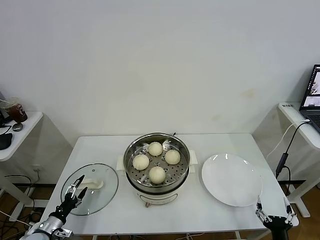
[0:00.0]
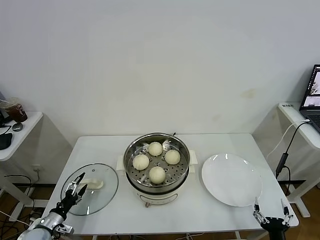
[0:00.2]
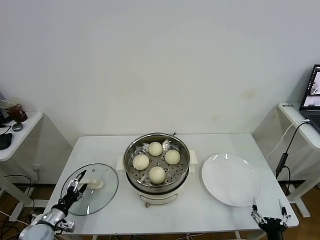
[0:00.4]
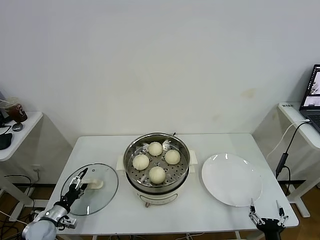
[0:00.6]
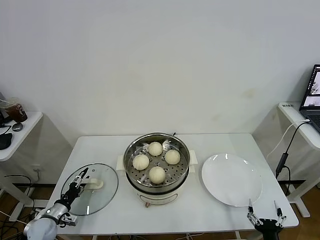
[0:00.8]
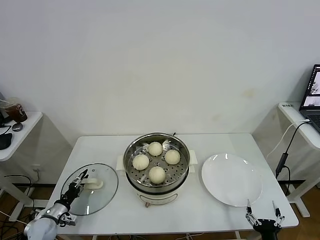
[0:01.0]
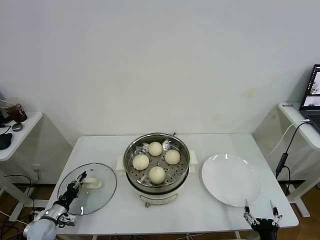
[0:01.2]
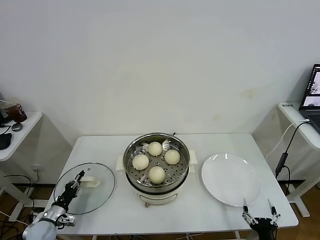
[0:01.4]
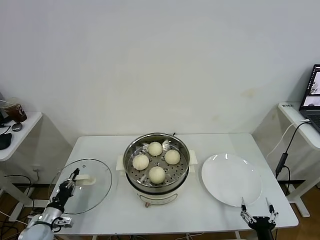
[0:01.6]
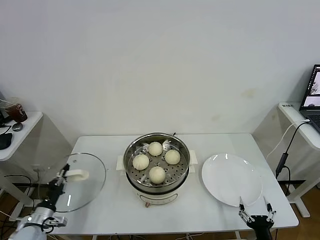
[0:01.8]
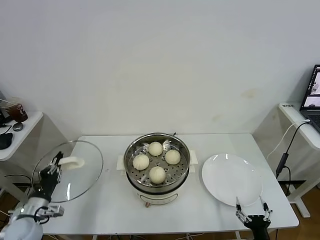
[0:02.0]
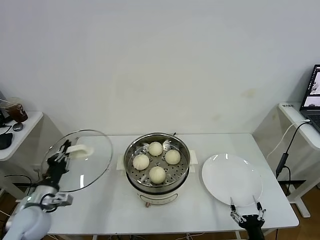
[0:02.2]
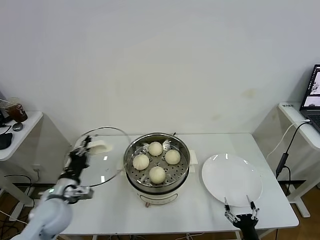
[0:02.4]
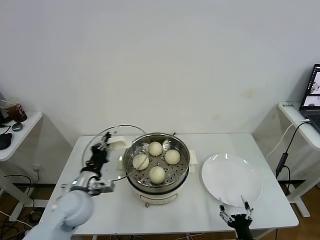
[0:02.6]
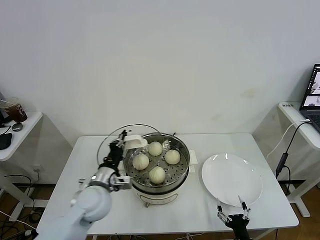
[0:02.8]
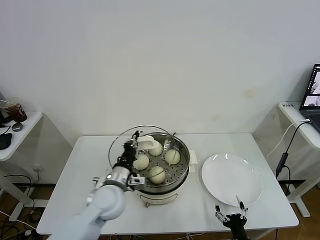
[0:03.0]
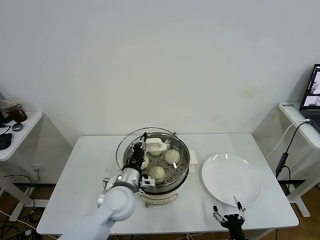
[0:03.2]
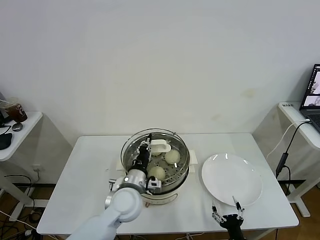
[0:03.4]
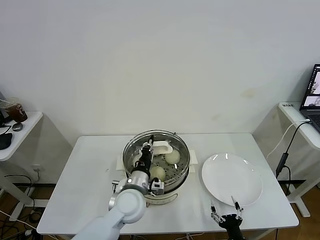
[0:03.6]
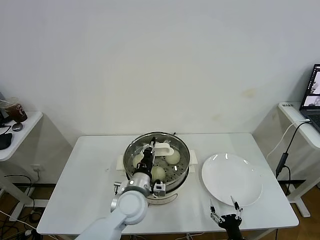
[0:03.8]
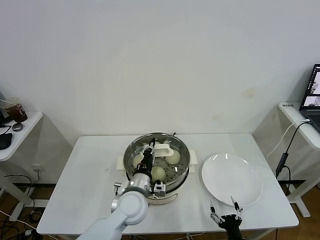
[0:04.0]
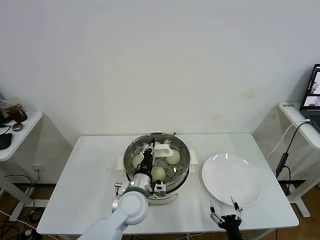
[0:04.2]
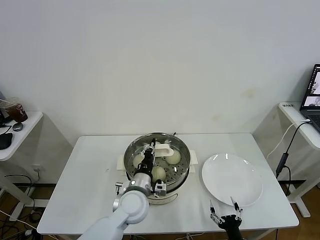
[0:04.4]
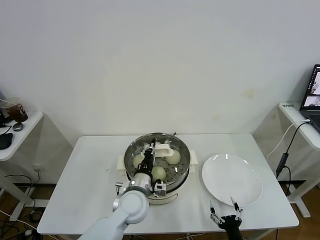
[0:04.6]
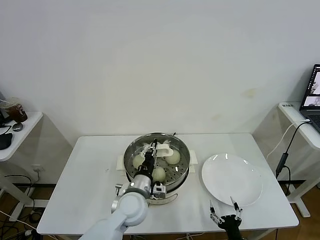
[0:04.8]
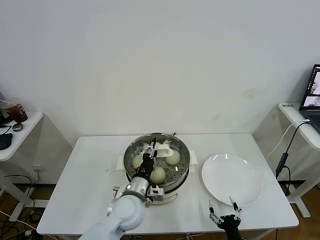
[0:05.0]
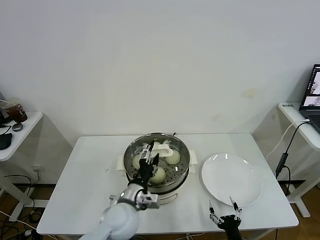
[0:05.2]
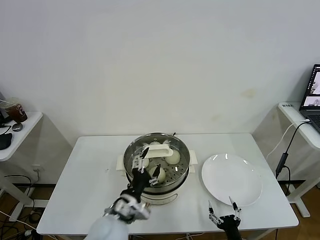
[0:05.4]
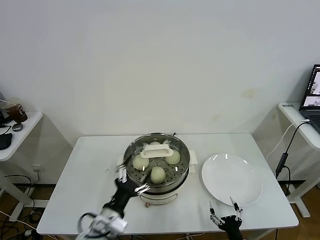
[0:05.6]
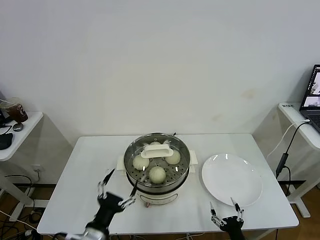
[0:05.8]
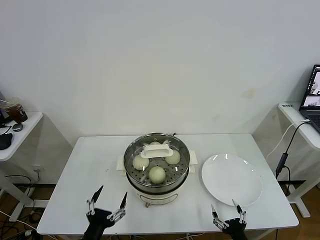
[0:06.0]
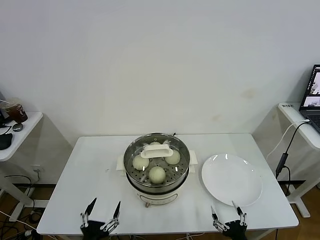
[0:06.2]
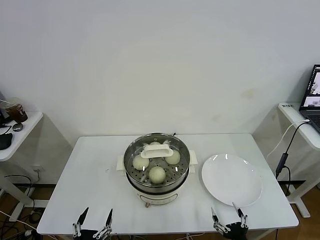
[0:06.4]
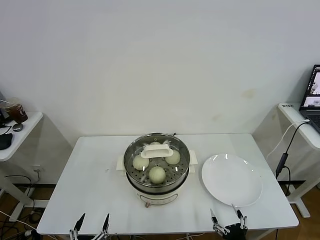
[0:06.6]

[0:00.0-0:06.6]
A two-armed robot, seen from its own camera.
Task of the whole recording: take steamed baozi put them in steamer.
Step, 0:01.6 to 0:05.6: Place the pot lid on the steamer with left gripper.
0:00.0 to 0:01.6: The left gripper closes.
0:01.6 to 0:03.2: The right gripper goes approximately 5 cm to the left; the left gripper moves to the right and upward, about 35 cm.
0:03.2 to 0:05.0: The left gripper opens up.
0:05.0 to 0:06.6: The left gripper heads backward and to the left, covering roughly 30 cm, and opens up. Meanwhile the right gripper is displaced upward by about 5 cm.

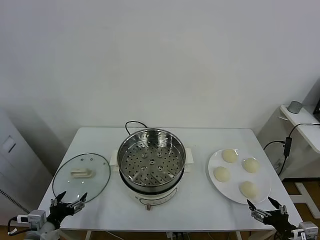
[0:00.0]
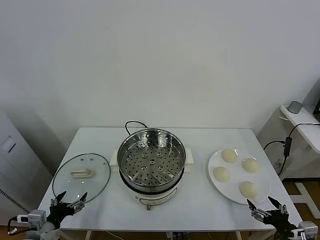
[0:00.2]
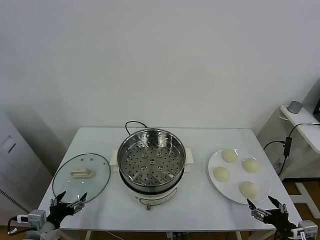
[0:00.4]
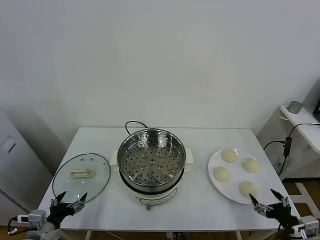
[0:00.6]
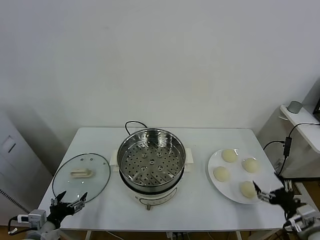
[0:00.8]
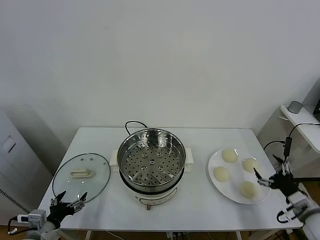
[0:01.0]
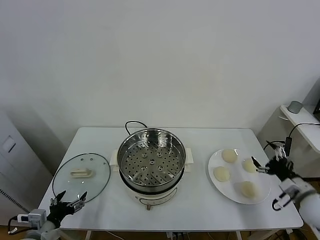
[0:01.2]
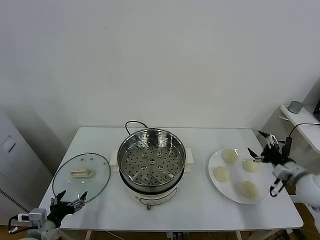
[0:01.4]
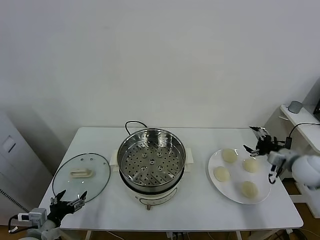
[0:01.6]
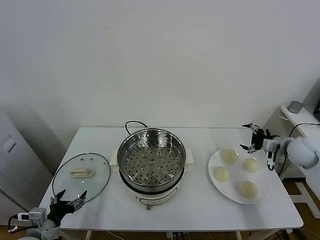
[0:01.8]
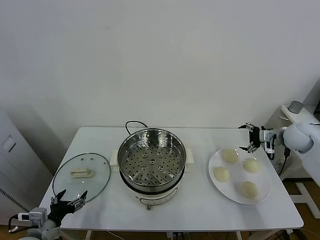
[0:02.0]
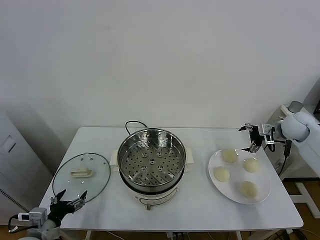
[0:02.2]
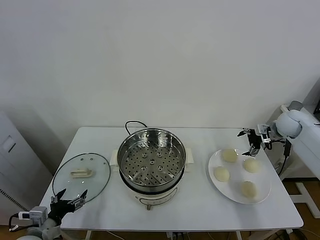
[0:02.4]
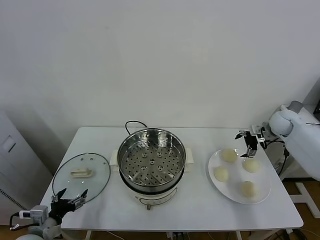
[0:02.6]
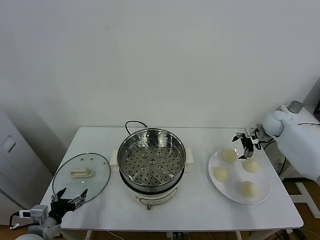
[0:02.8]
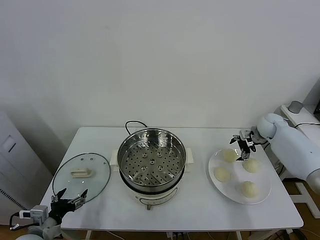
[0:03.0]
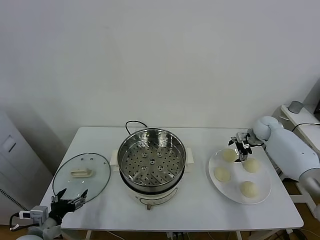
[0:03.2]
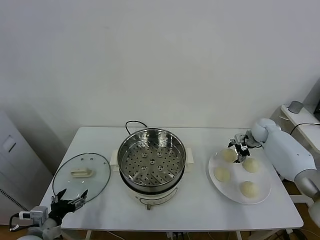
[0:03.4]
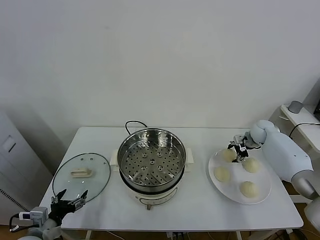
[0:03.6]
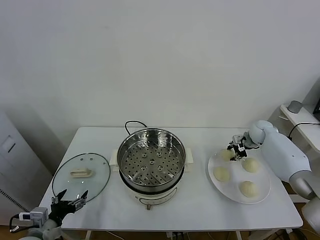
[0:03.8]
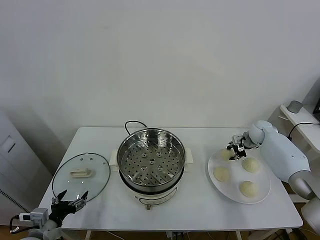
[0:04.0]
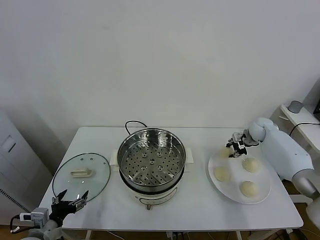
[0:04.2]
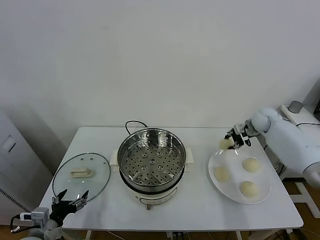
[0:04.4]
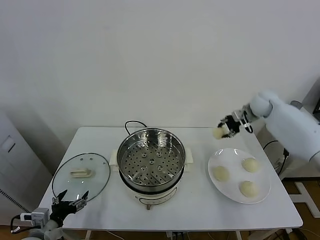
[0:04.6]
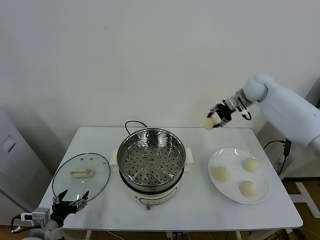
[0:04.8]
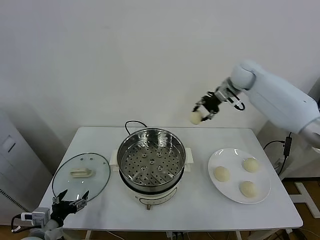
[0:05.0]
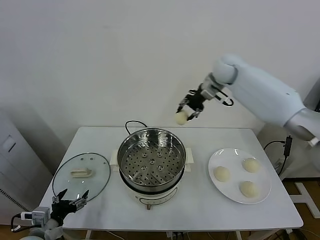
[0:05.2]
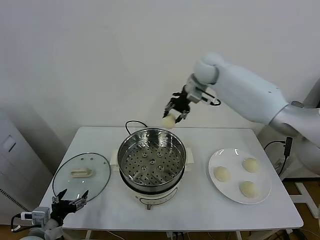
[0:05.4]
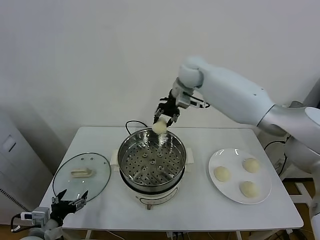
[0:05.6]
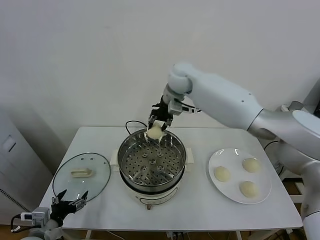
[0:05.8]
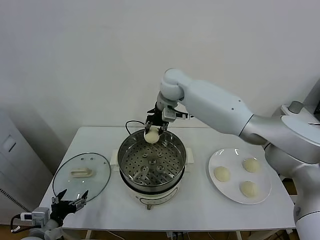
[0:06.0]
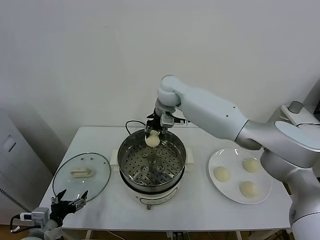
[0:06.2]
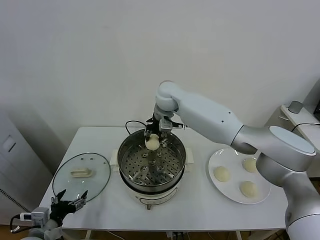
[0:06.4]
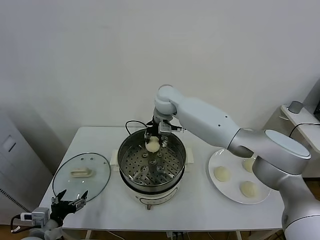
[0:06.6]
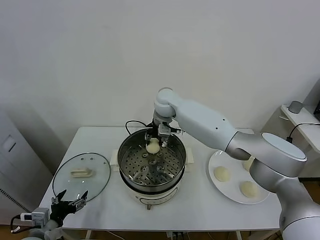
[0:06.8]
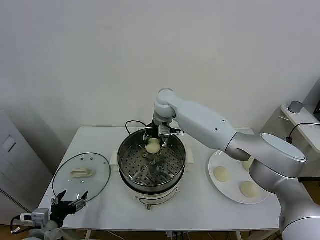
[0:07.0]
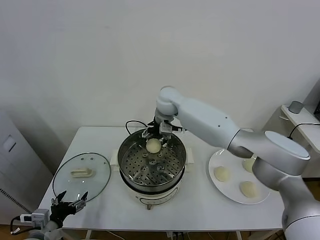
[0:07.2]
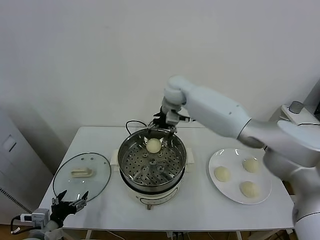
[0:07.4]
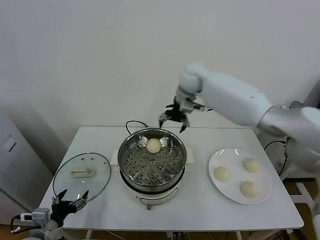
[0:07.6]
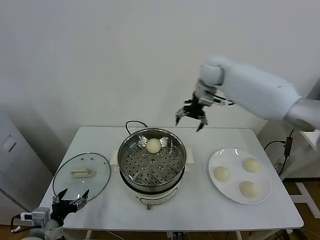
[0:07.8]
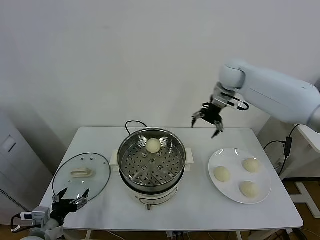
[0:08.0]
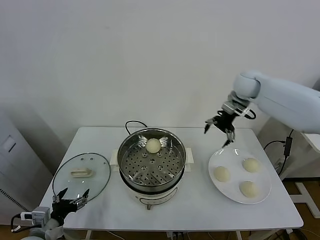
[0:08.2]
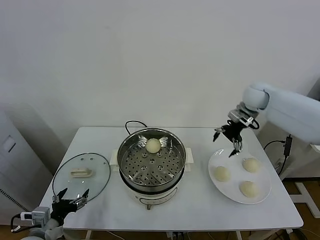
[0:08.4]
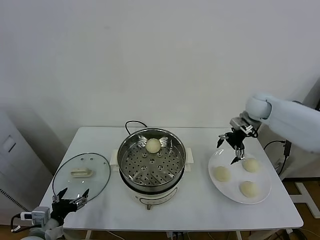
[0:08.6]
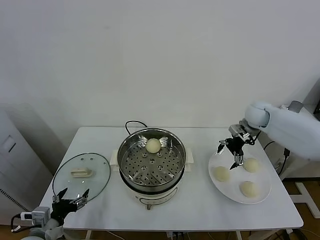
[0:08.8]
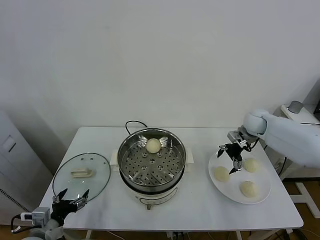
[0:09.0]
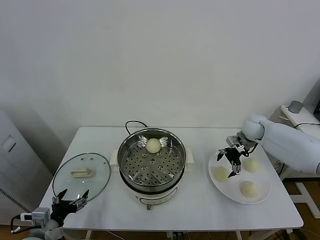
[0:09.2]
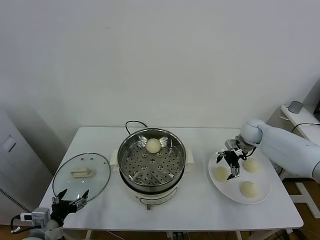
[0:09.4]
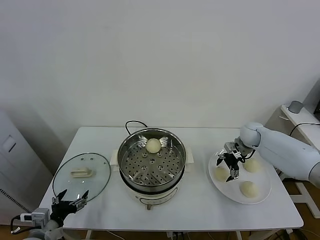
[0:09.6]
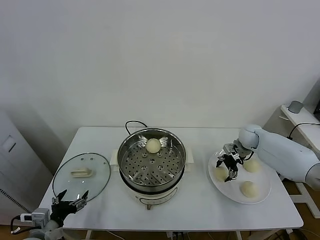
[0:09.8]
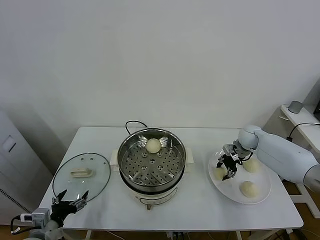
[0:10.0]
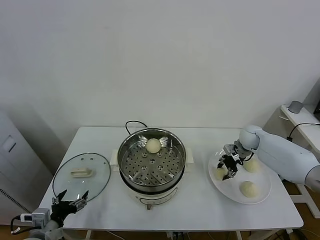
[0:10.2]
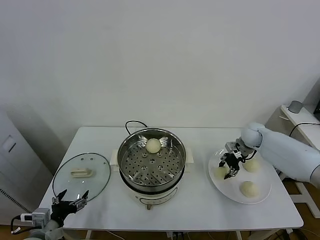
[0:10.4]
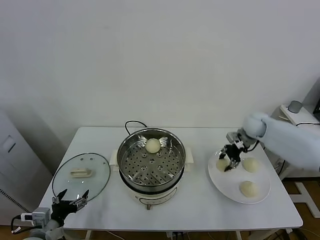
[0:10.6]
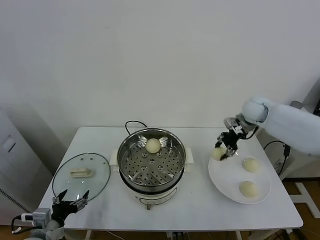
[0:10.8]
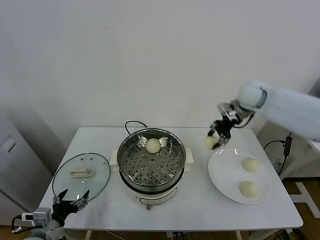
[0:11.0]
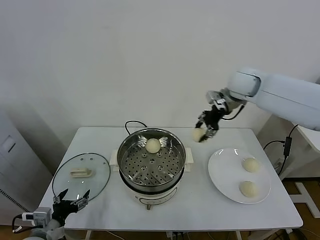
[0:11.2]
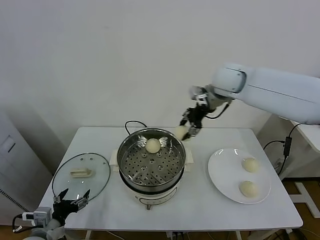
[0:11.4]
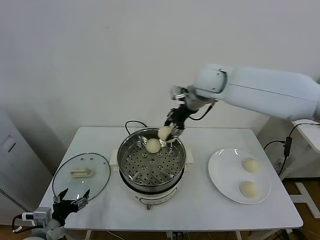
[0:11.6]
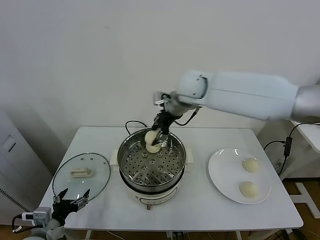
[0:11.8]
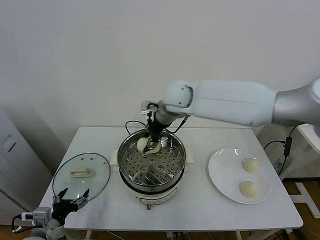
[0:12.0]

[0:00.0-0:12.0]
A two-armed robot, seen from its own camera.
Task of the whole recording: take steamed baozi put them in steamer.
Step, 0:00.0 to 0:03.8: Grasp the baozi in the plate with right gripper.
Step, 0:04.0 to 0:07.2: Place the baozi on the steamer with right gripper.
Step, 0:07.4 to 0:10.0: Grasp the baozi in the plate with right gripper.
0:01.6 to 0:03.0: The right gripper travels forward by approximately 15 cm.
0:03.0 to 0:04.4: The right gripper travels upward by approximately 5 cm, and closes.
0:04.4 to 0:06.0: The right gripper is displaced to the left by approximately 35 cm.
0:06.0 to 0:07.6: The right gripper is displaced to the right by roughly 10 cm, and opens its fingers.
0:07.6 to 0:09.0: The right gripper is displaced to the right and downward by approximately 30 cm.
0:09.0 to 0:10.4: The right gripper closes its fingers.
0:10.4 to 0:12.0: The right gripper is displaced to the left and upward by about 40 cm.

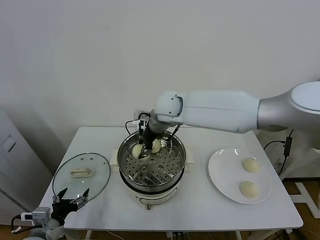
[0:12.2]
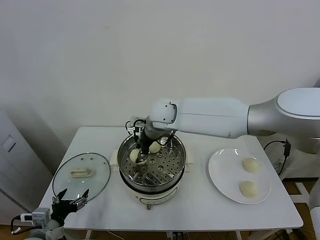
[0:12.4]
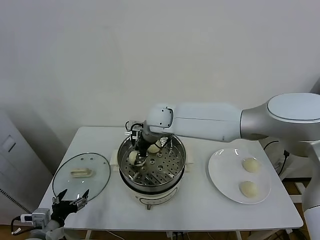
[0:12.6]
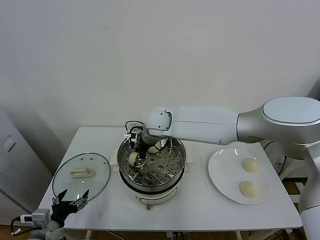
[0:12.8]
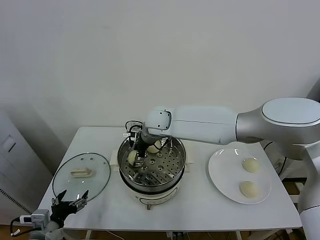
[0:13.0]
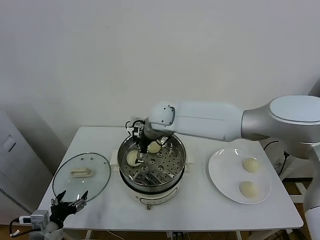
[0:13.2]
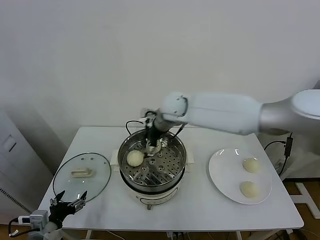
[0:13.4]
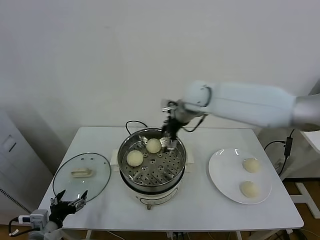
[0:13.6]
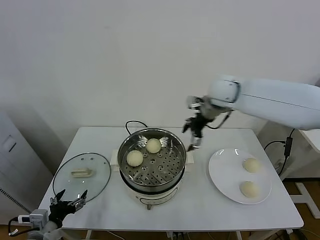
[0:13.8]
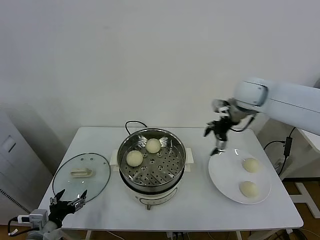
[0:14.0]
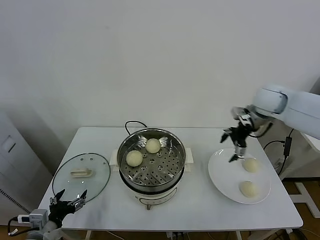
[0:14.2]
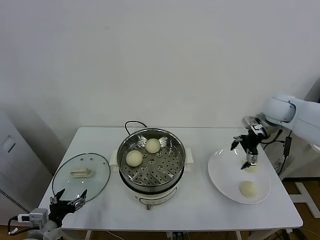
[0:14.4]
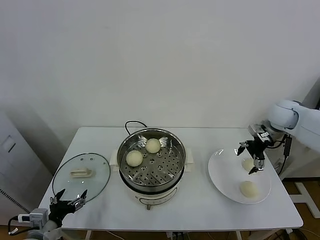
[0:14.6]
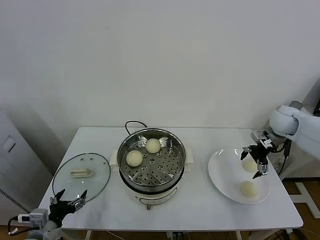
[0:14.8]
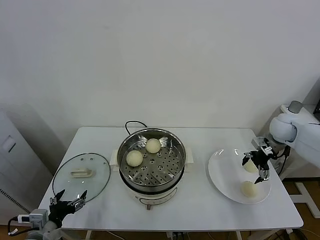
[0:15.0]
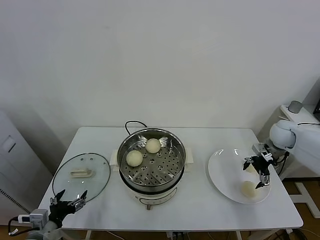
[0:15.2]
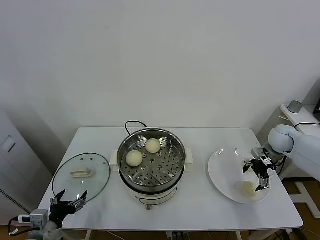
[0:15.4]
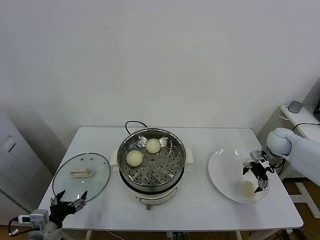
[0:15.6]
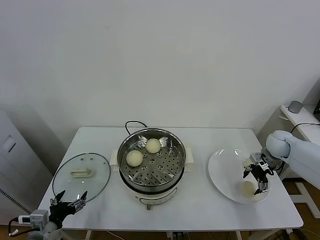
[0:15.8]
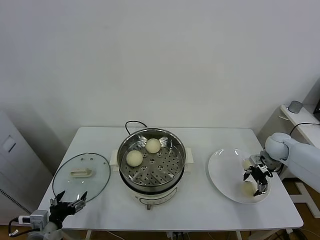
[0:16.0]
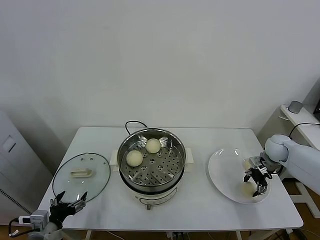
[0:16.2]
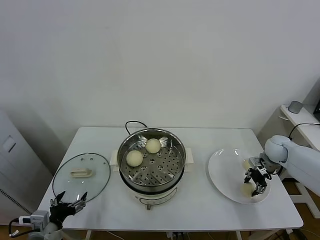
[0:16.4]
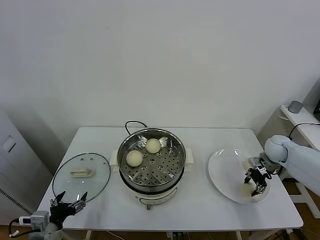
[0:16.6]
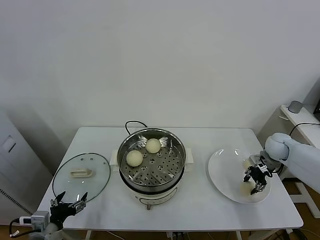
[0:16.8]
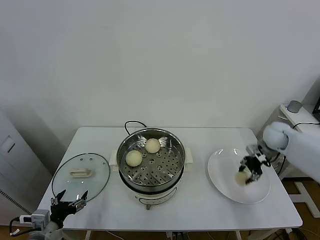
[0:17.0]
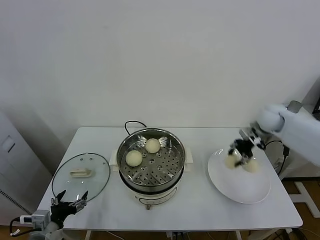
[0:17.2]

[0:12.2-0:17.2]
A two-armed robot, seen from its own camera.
Task of the whole recording: take steamed baozi put them in steamer.
Step, 0:13.4 to 0:16.4: Grasp the baozi in the plate with right gripper.
0:12.2 to 0:13.8: The right gripper is displaced to the right by approximately 20 cm, and opens up.
0:13.8 to 0:15.6: The right gripper travels to the right and downward by about 30 cm.
0:15.6 to 0:17.2: The right gripper goes about 15 cm upward and to the left, and closes.
